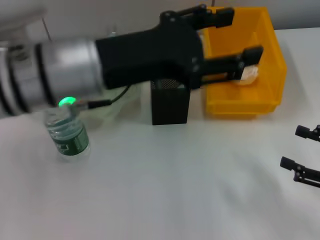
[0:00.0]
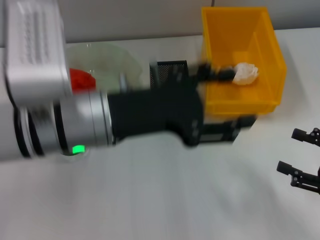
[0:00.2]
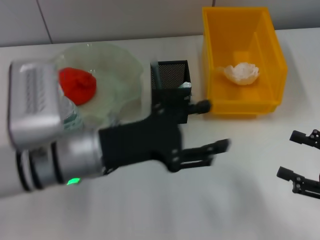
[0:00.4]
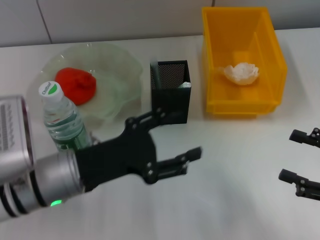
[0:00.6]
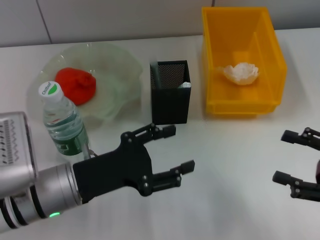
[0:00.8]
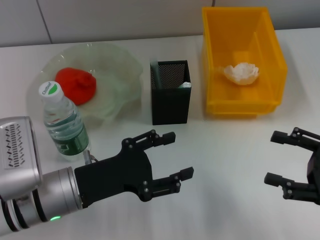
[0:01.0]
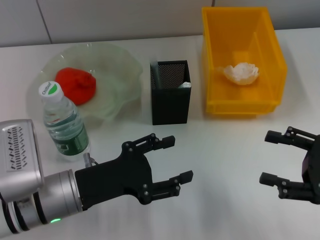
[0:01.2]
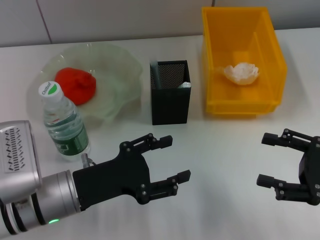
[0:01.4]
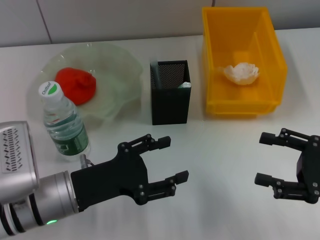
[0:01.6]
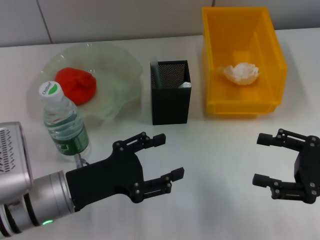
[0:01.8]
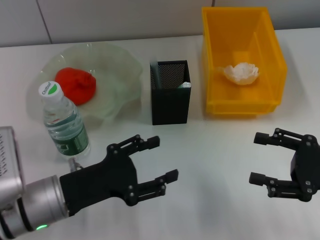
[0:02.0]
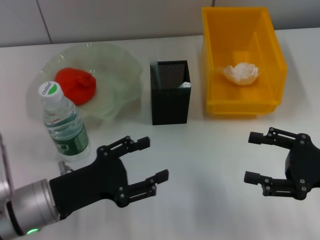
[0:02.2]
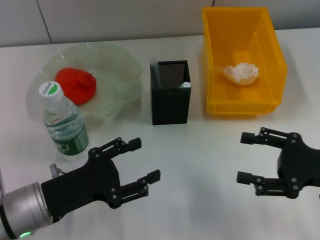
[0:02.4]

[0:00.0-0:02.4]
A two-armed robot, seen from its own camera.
0:00.0 to 0:01.2: The left gripper moves downward, approximately 15 cm.
0:01.2 to 0:02.4: The grippers move only a little.
